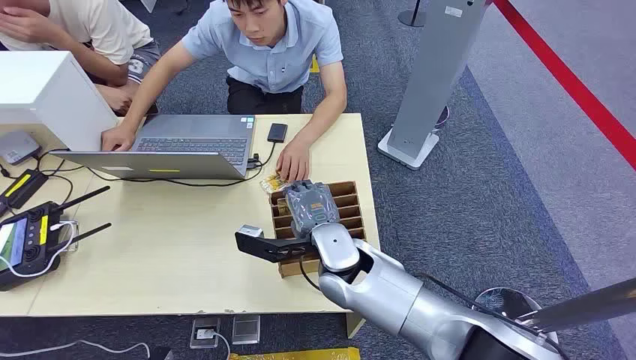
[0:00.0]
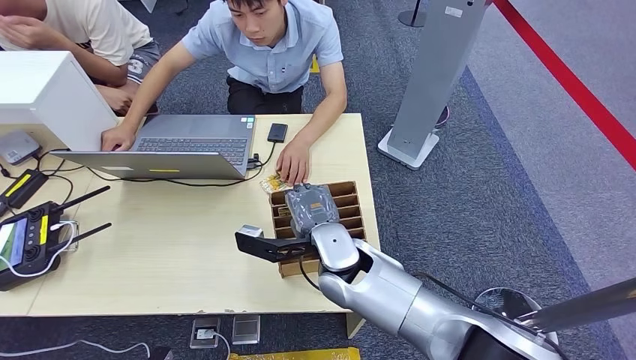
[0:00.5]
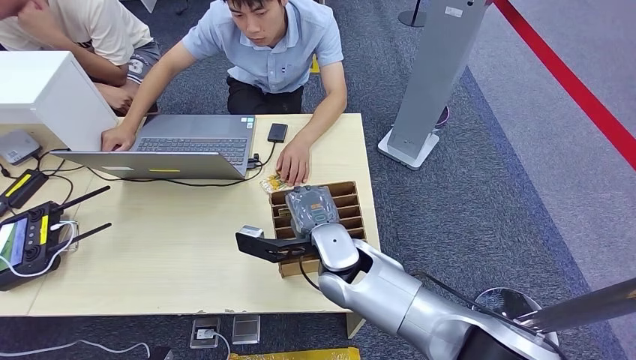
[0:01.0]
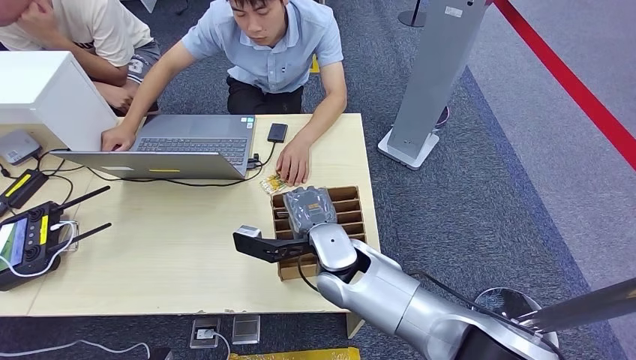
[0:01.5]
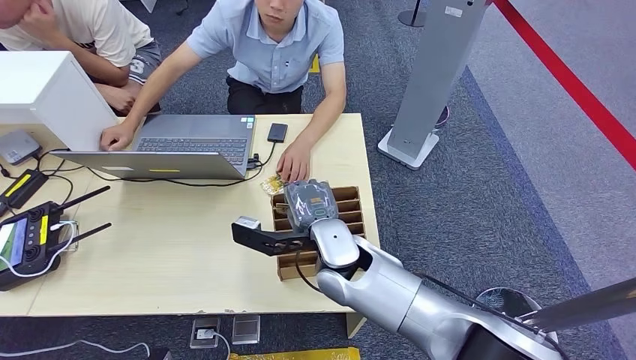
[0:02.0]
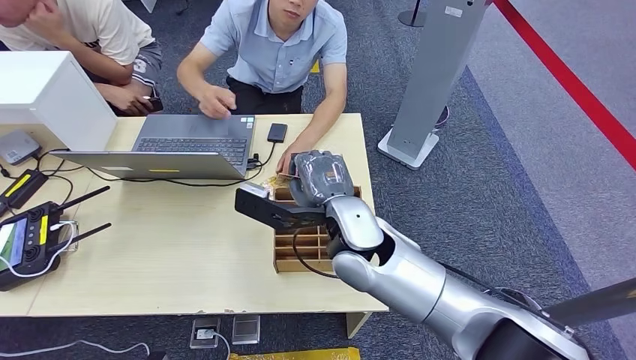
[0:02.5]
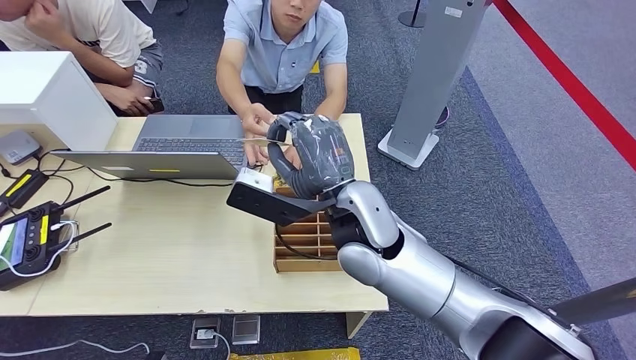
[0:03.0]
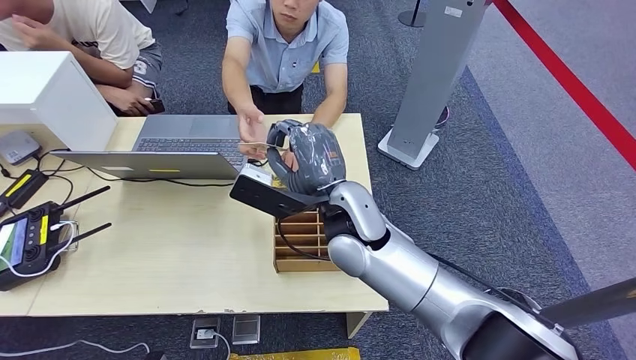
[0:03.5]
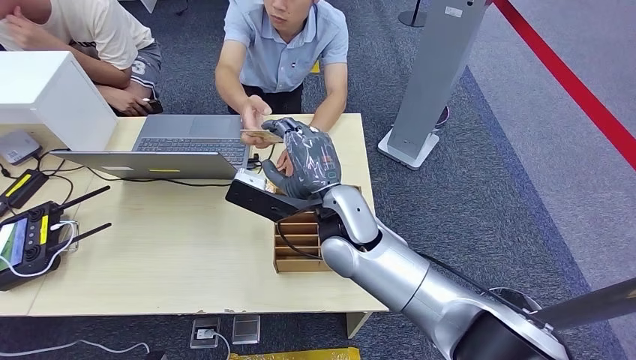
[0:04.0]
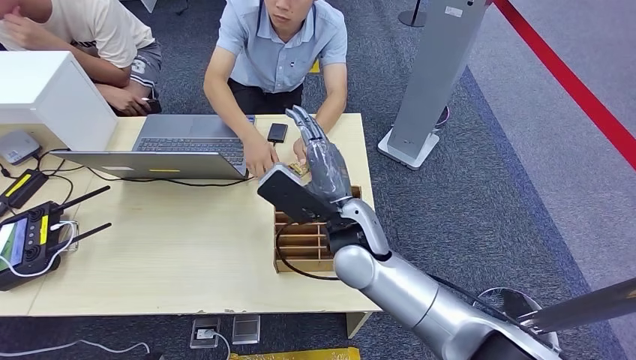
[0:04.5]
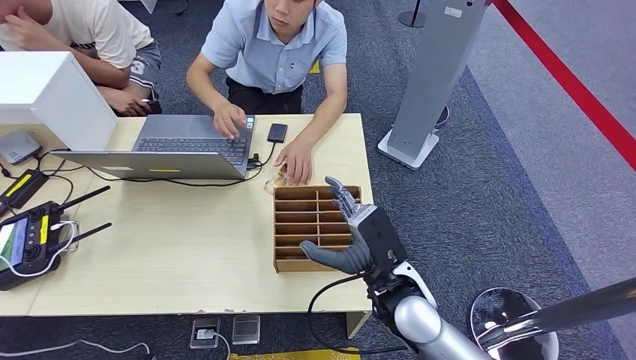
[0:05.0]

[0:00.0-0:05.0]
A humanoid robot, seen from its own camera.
Step, 0:00.0 to 0:02.5: Pick up the key card from the card box.
Step, 0:03.0 to 0:05.0: Hand the key card to the target.
0:02.5 to 0:05.0: The right hand moves to the right, downward and backward, some 15 cm.

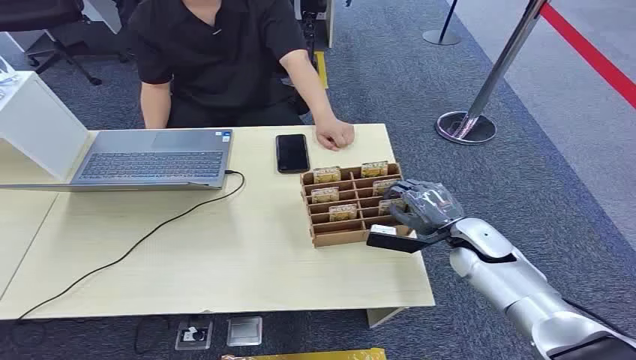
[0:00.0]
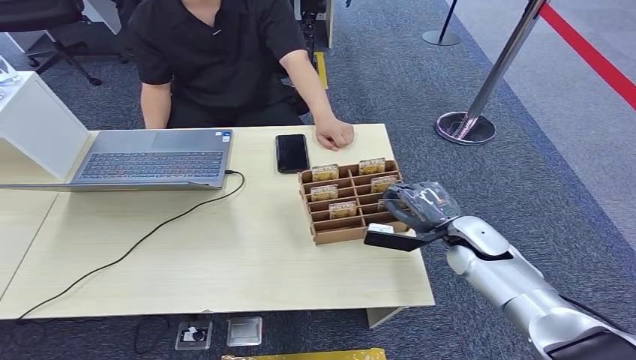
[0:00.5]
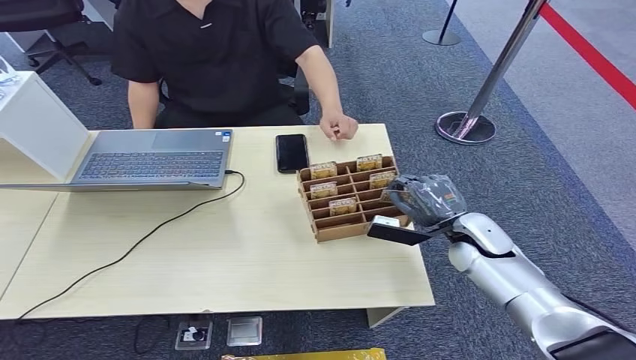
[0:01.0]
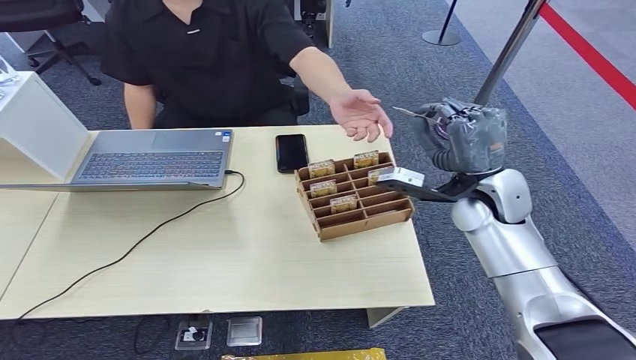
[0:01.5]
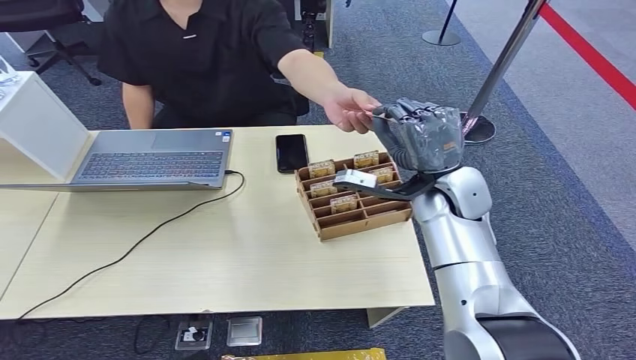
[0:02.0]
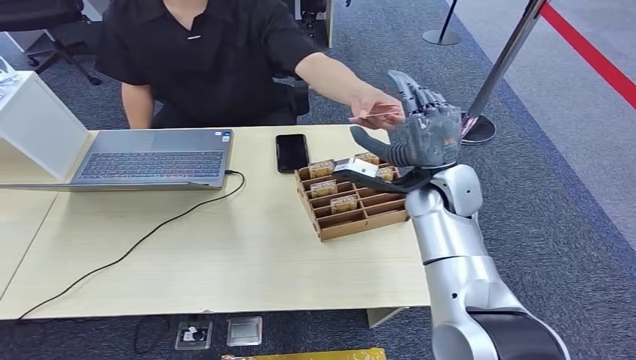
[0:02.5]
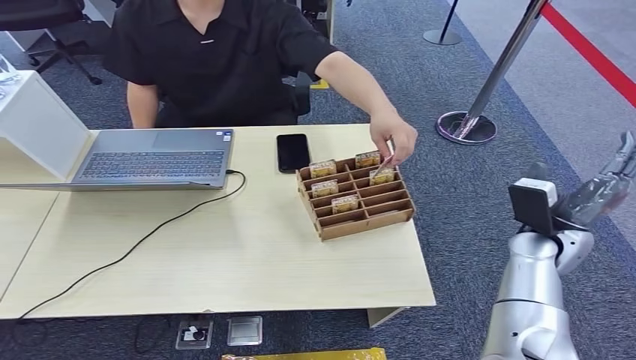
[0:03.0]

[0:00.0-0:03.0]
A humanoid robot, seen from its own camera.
Step, 0:00.0 to 0:01.0: Pick up the key card from the card box.
Step, 0:01.5 to 0:03.0: Hand the key card to the target.
0:01.5 to 0:03.0: The right hand heads downward, to the right and backward, covering approximately 15 cm.
